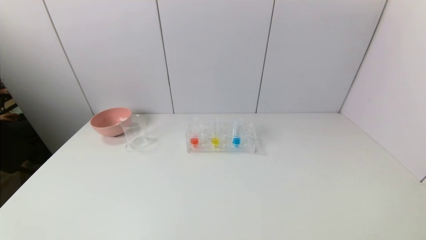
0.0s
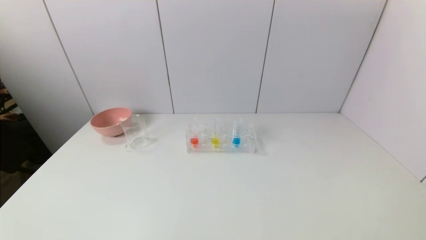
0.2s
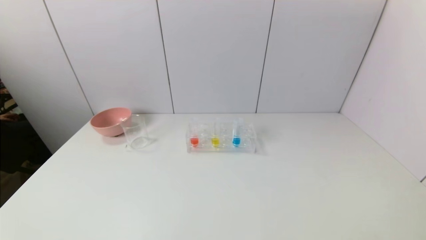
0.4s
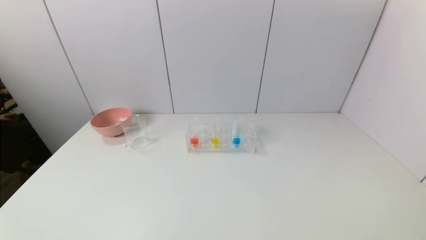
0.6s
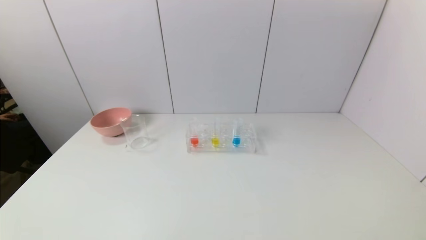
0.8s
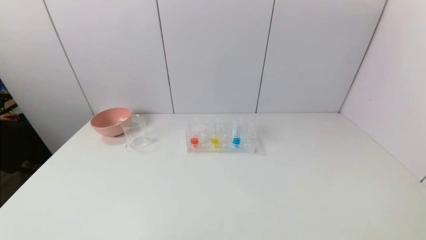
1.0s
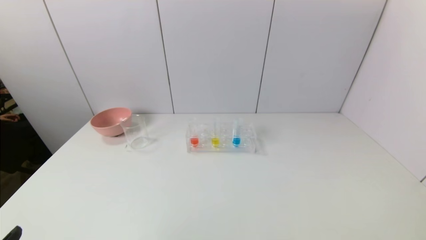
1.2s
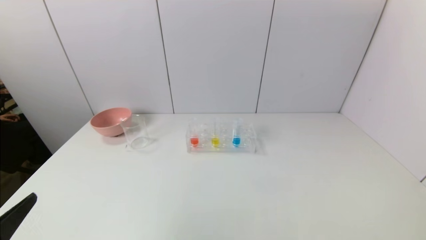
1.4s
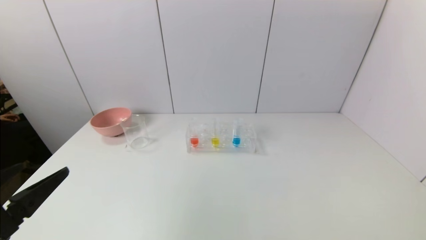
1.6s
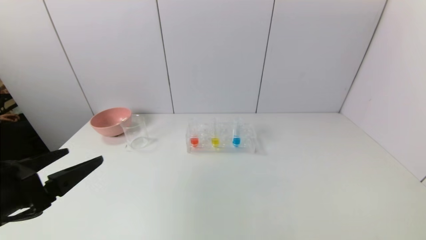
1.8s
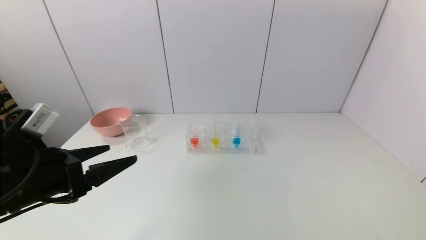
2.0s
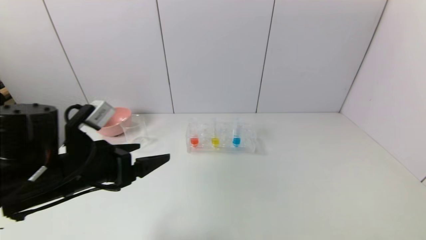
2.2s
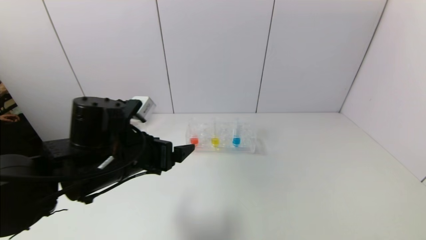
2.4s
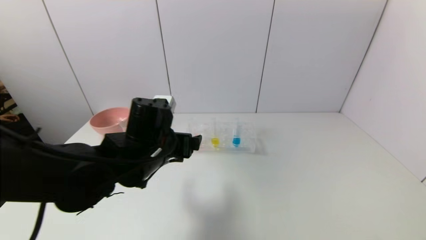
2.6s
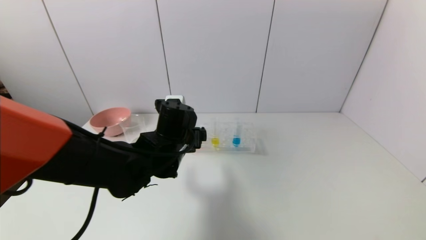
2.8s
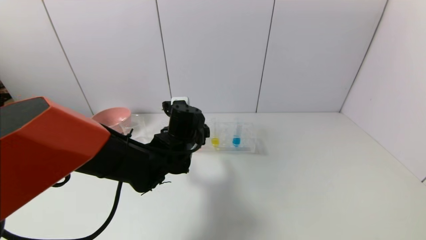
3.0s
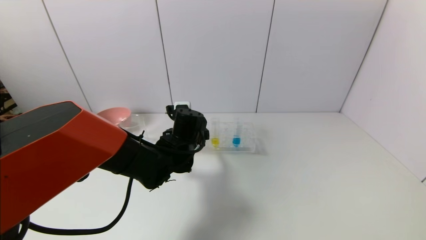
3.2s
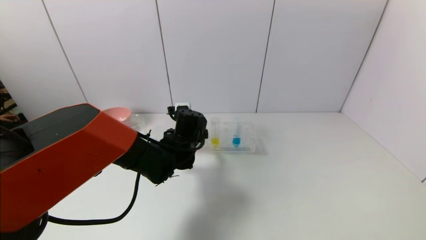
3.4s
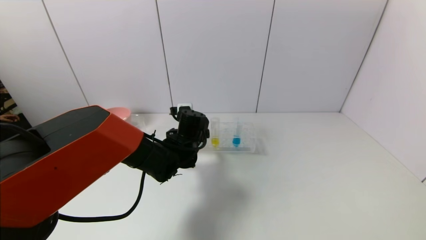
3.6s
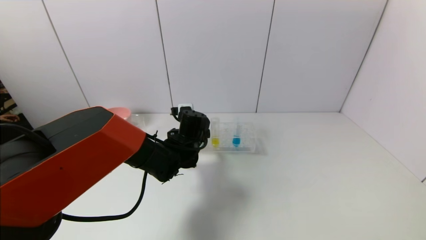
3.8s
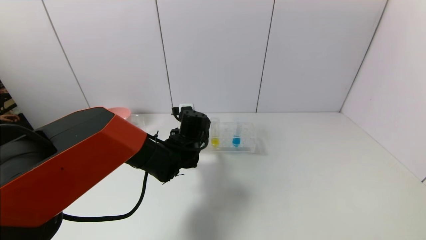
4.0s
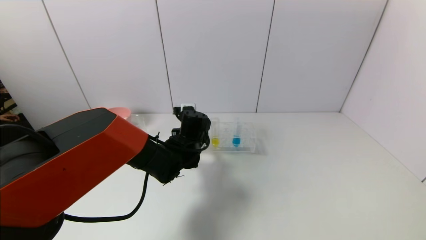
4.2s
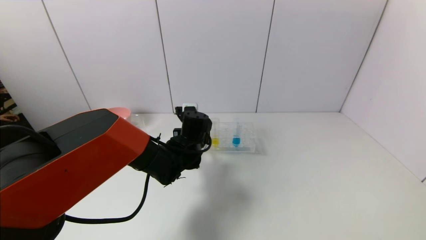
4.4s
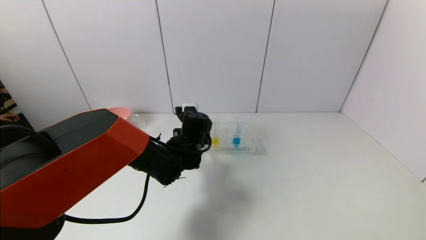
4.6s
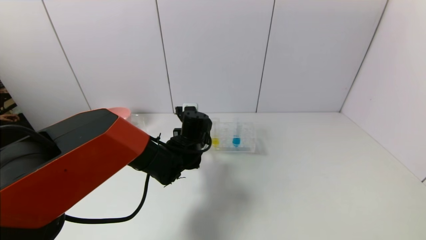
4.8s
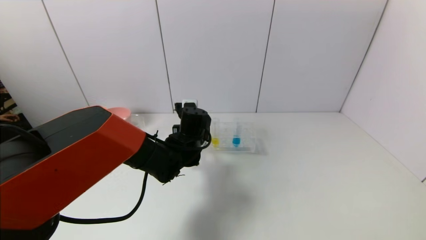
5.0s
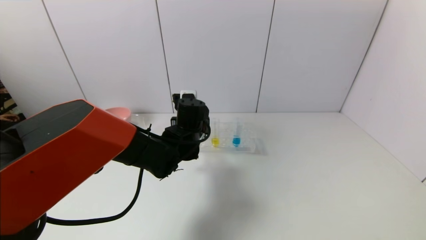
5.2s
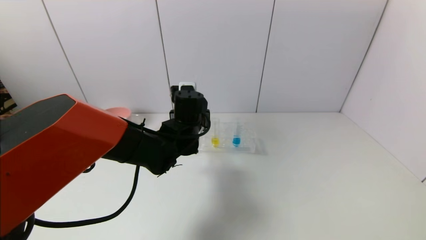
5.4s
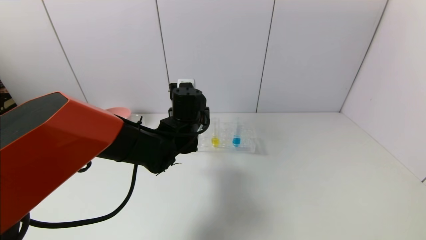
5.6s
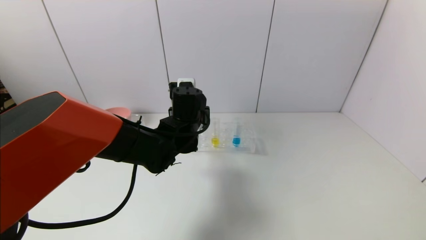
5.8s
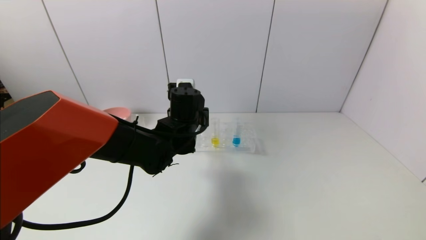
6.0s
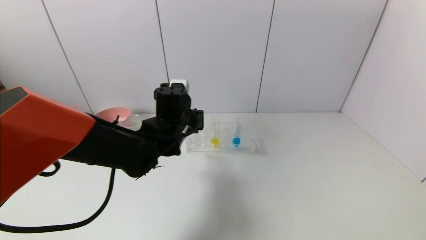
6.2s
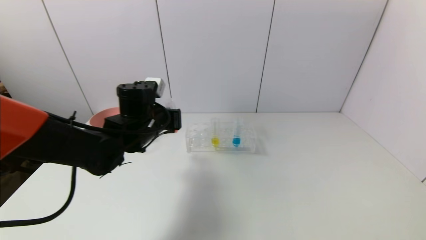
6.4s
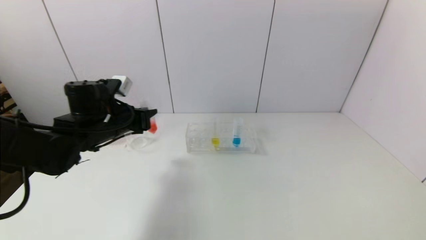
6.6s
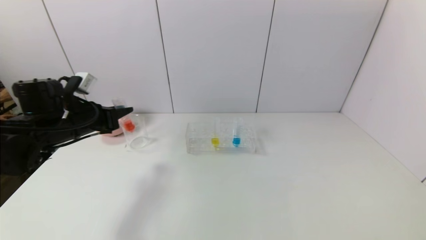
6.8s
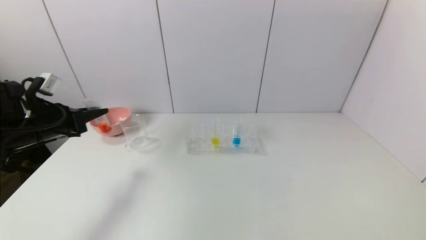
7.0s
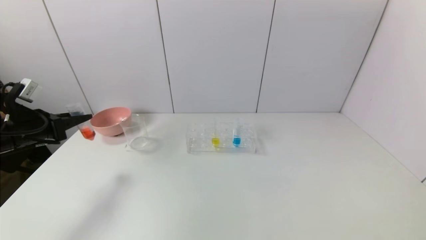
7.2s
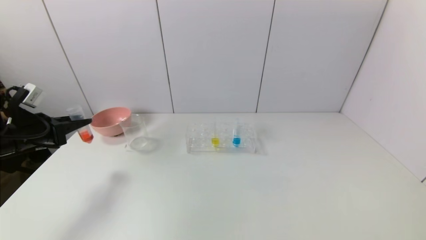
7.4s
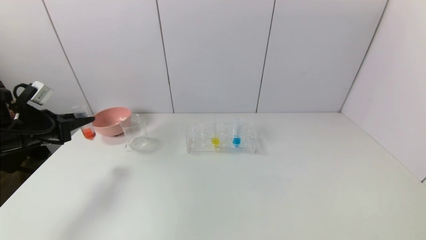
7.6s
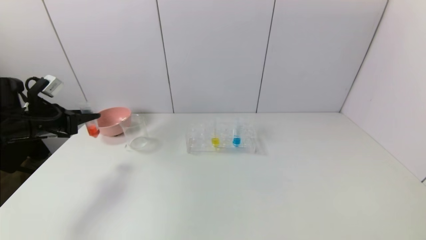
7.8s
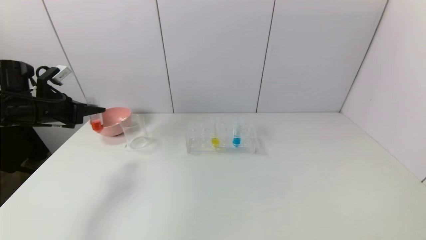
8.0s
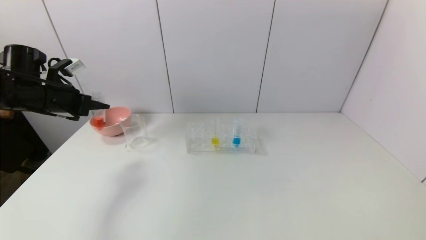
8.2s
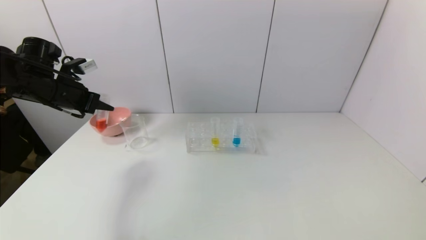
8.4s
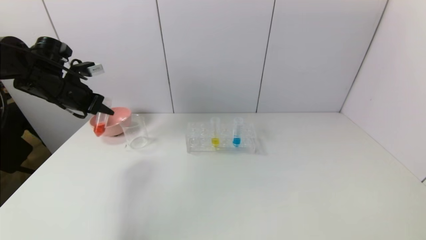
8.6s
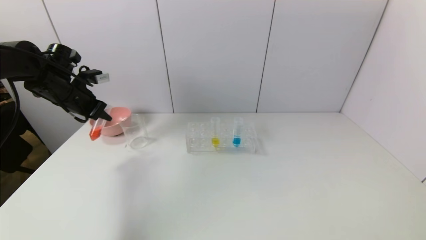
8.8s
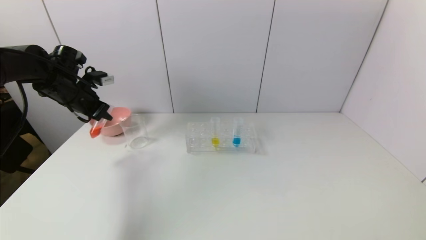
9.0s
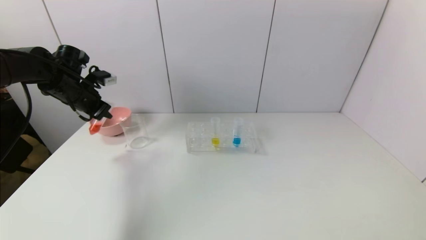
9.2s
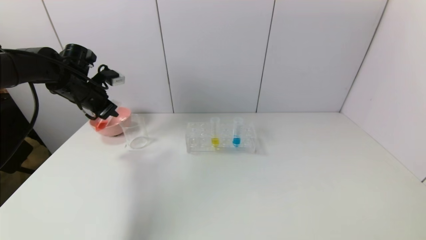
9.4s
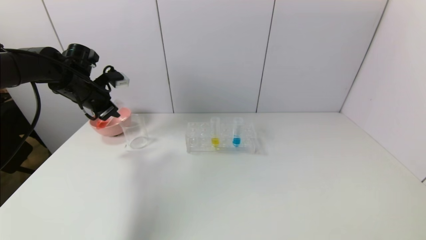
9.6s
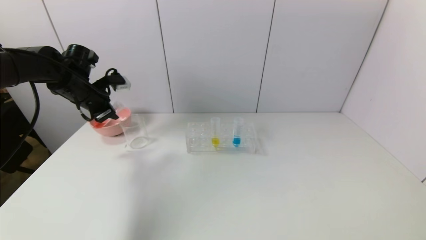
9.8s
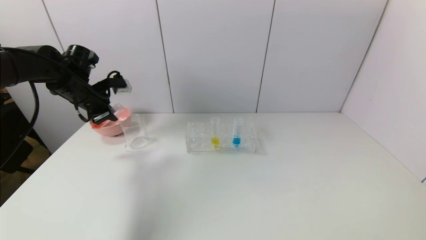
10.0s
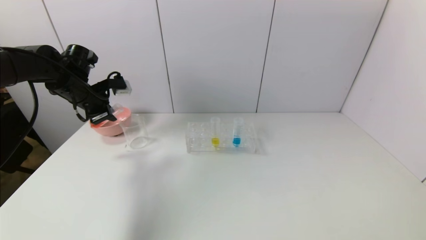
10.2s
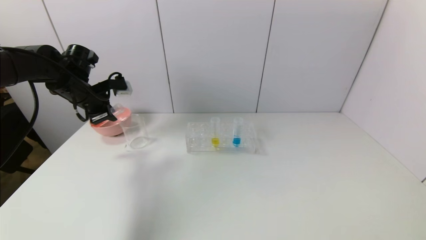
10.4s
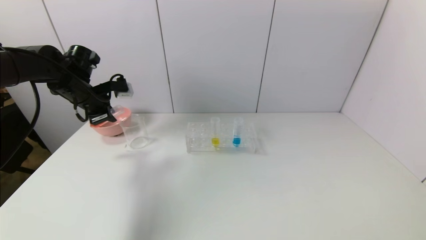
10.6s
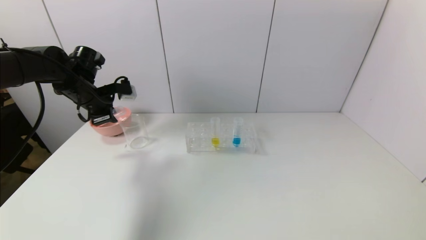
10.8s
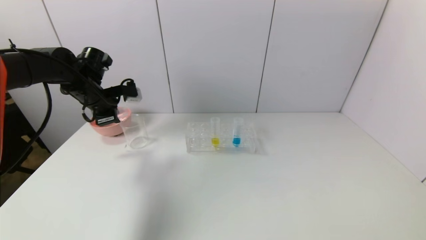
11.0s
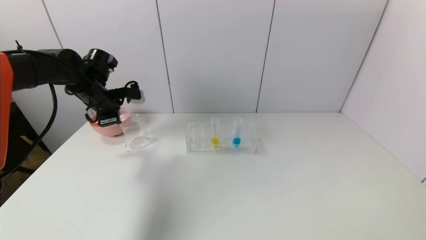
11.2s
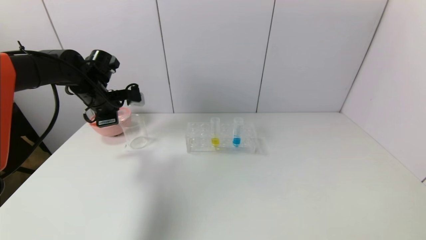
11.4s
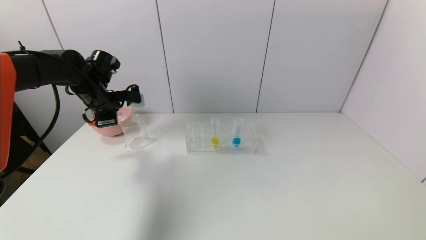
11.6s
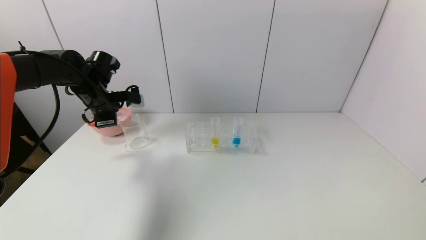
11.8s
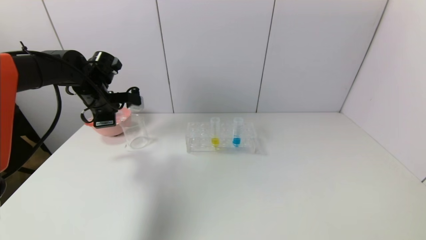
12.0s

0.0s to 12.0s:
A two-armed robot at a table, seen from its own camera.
Task of the whole recording: pick up the test tube with red pigment and the test tube with blue pigment by grippers and pour them into the container.
Step, 0.0s to 4.4s: Grasp the red reagent with the left gripper.
0.0s to 1.6s: The left gripper heads upward and forward, covering about 15 cm.
1.6s to 3.0s: The left gripper moves forward and to the right, approximately 30 cm.
3.0s to 4.4s: The left gripper moves roughly 5 cm, and closes.
4.4s to 6.0s: The left gripper goes some 5 cm upward.
6.0s to 7.6s: The left gripper goes some 35 cm to the left.
7.6s to 9.0s: The left gripper heads forward, to the right and upward, covering some 15 cm.

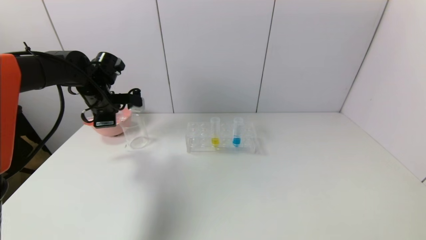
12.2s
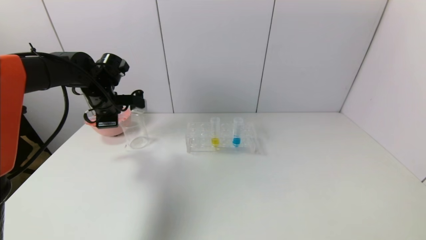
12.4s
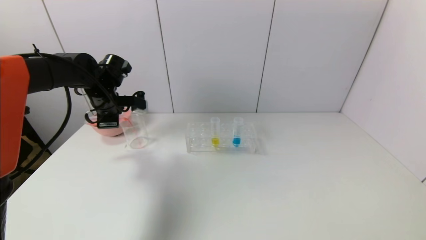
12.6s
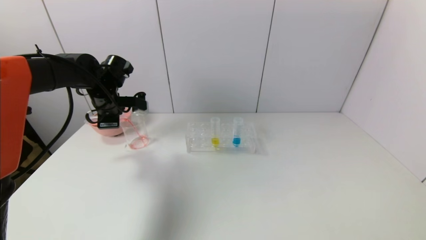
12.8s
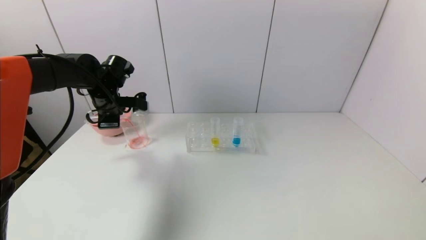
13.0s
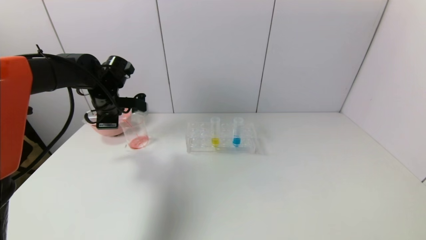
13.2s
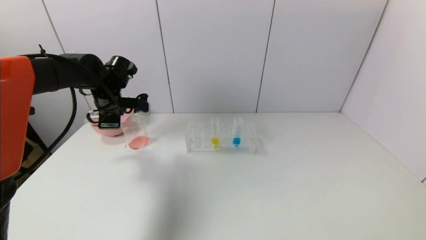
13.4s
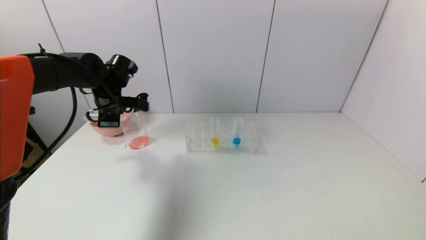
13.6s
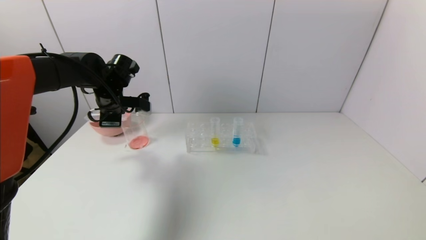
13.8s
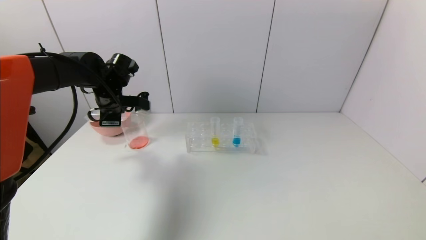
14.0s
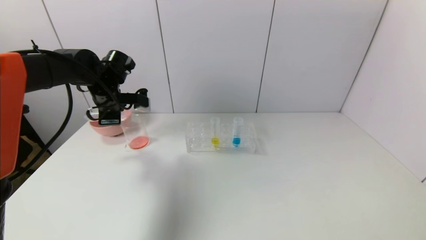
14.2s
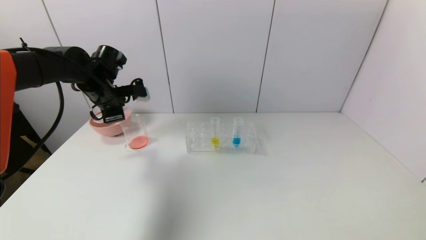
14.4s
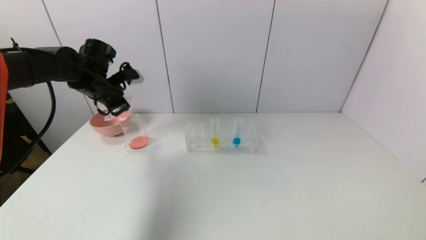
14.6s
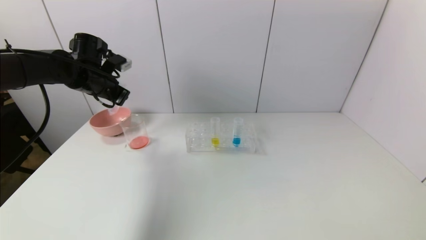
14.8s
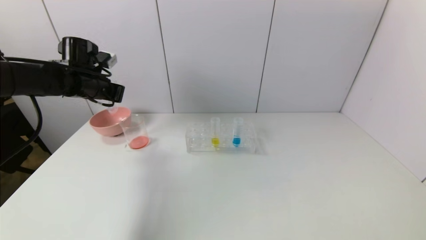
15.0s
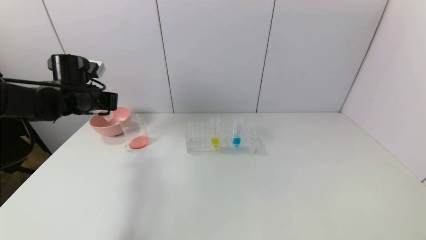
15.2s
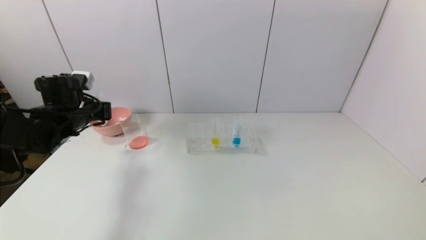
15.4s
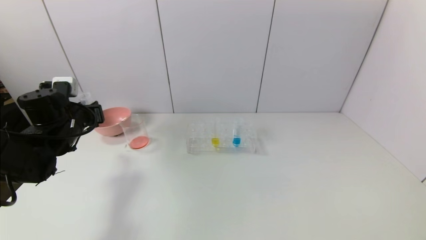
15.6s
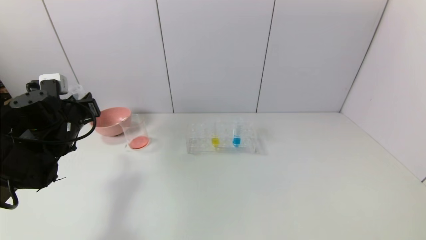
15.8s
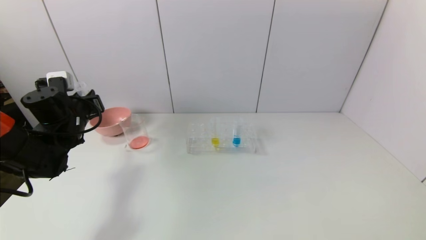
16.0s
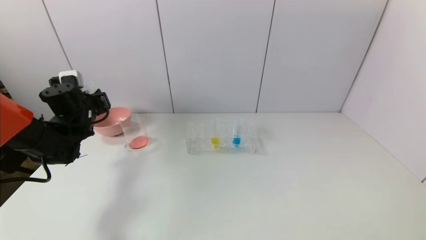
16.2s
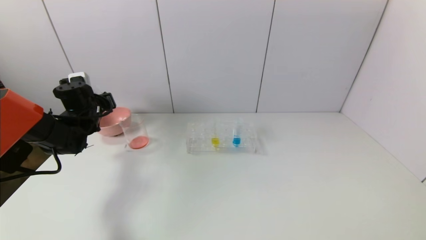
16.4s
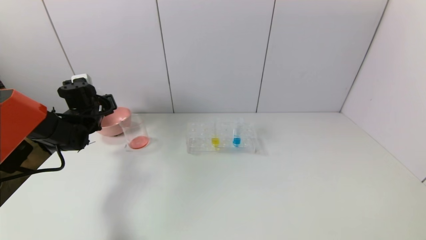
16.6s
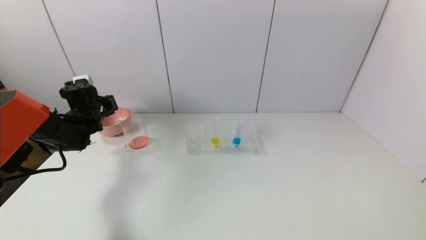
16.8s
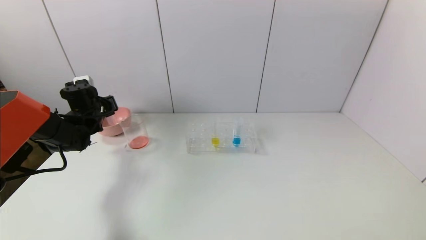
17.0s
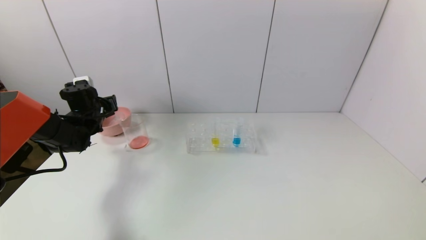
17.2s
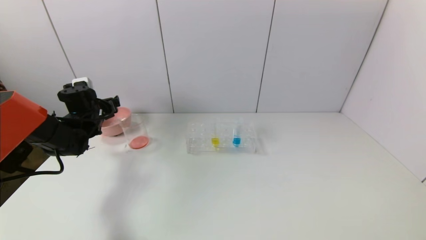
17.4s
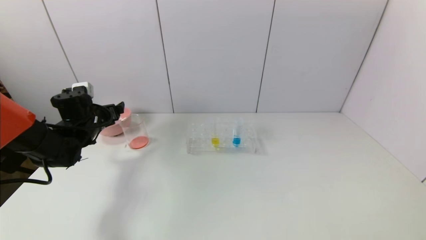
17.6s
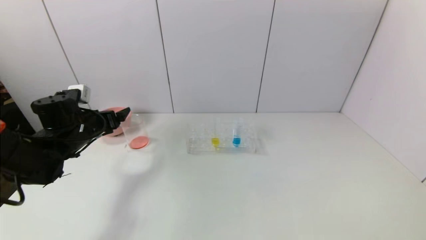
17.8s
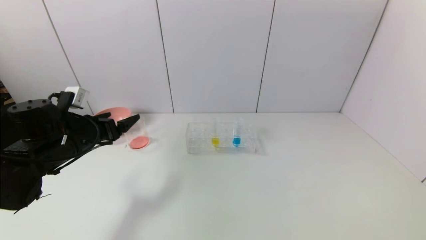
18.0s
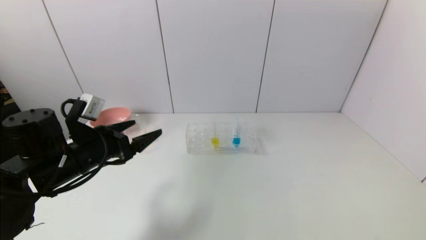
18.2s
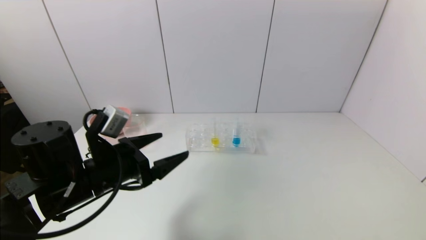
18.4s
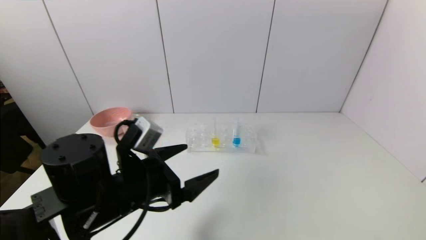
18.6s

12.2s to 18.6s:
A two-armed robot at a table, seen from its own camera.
Task of the whole recording: pick up the test tube with red pigment and the test tube with blue pigment by grippers and pour them into the container.
Step, 12.2s to 14.2s: Pour the red reagent into the graduated cylinder with the left gripper.
Step, 14.4s to 17.0s: Place the test tube into the bowl with the left gripper.
12.2s to 13.8s: There are only small adjustments of the grippers.
13.8s to 15.4s: The left gripper heads to the left and backward, covering roughly 10 cm.
15.4s to 17.0s: The left gripper moves forward, about 10 cm.
17.0s to 18.6s: The left gripper goes roughly 35 cm backward and to the right, and opens up.
